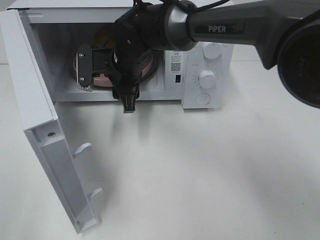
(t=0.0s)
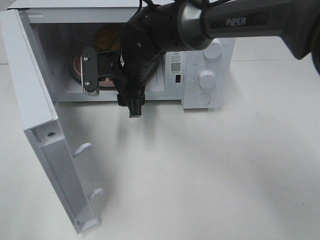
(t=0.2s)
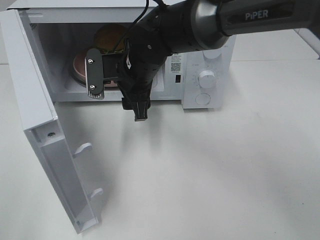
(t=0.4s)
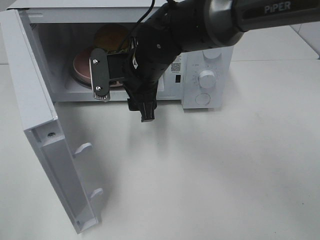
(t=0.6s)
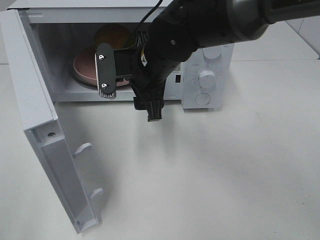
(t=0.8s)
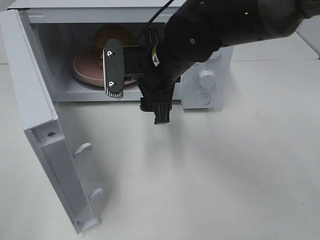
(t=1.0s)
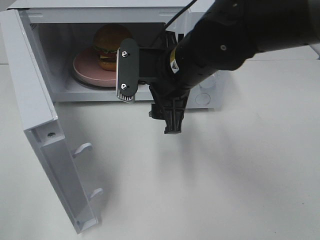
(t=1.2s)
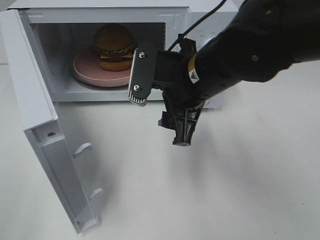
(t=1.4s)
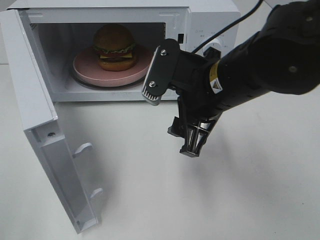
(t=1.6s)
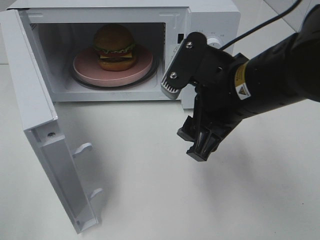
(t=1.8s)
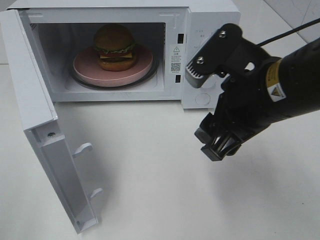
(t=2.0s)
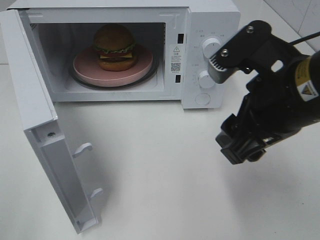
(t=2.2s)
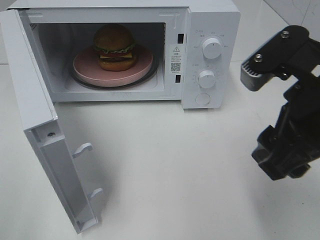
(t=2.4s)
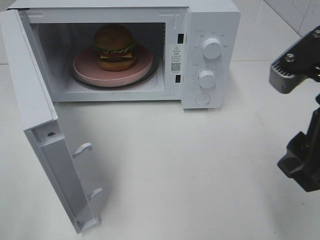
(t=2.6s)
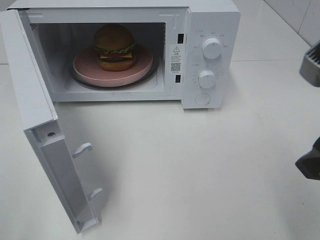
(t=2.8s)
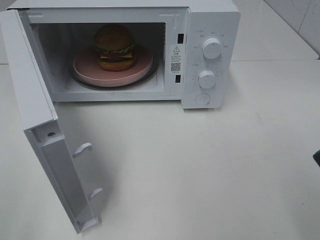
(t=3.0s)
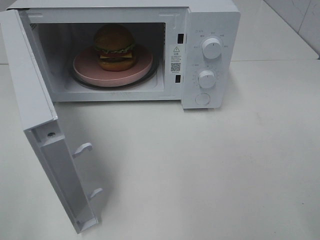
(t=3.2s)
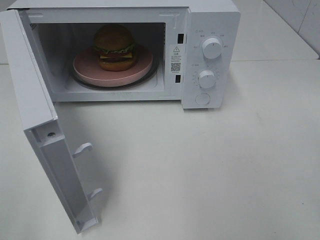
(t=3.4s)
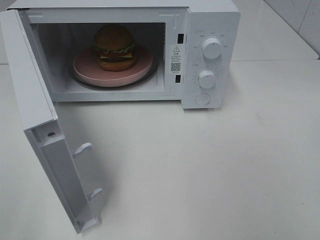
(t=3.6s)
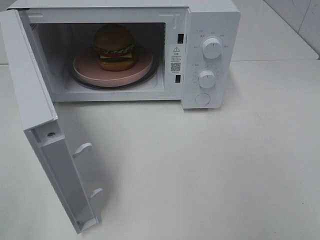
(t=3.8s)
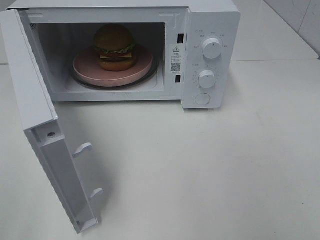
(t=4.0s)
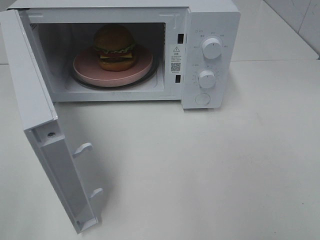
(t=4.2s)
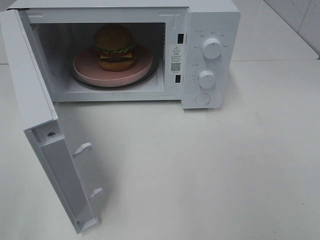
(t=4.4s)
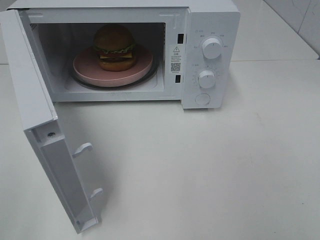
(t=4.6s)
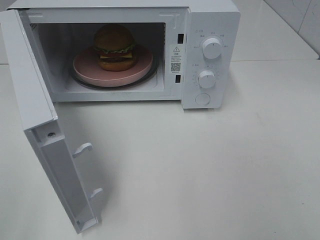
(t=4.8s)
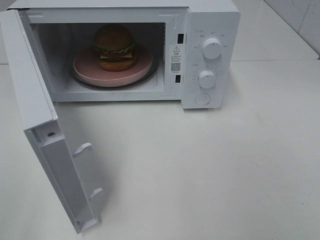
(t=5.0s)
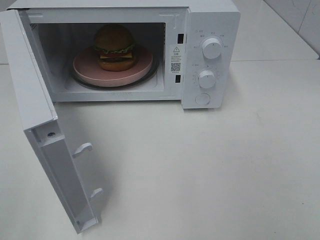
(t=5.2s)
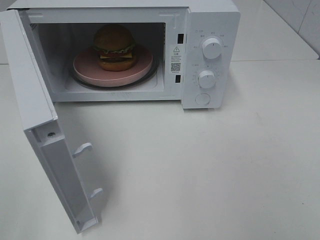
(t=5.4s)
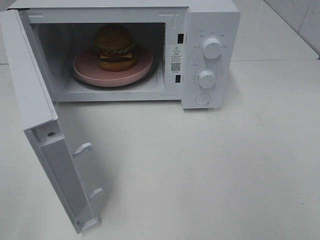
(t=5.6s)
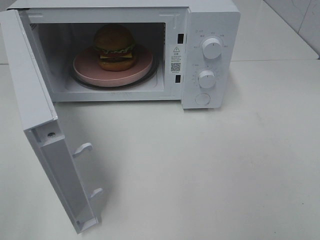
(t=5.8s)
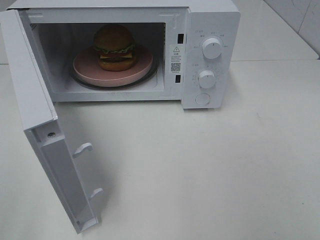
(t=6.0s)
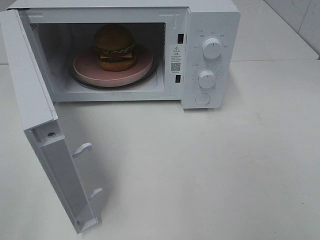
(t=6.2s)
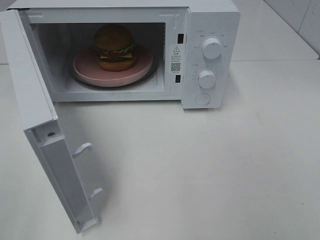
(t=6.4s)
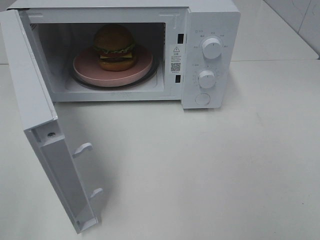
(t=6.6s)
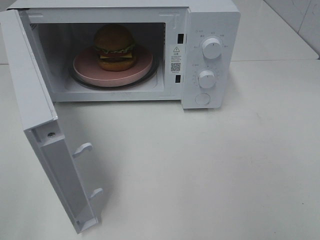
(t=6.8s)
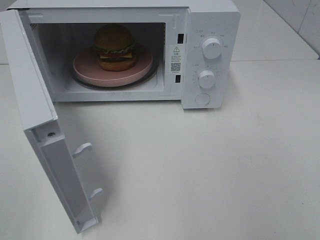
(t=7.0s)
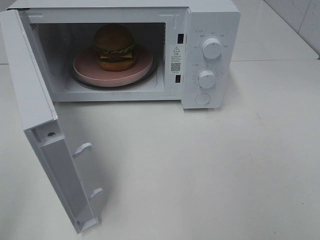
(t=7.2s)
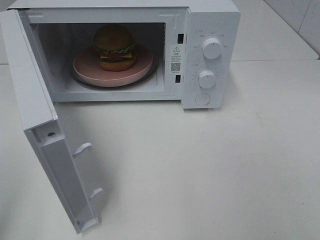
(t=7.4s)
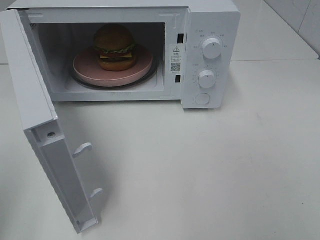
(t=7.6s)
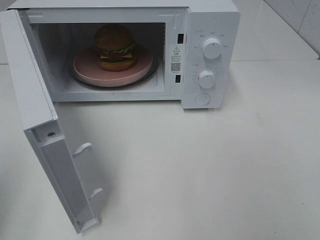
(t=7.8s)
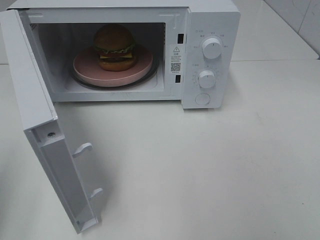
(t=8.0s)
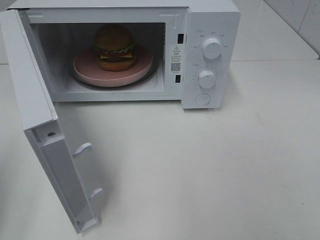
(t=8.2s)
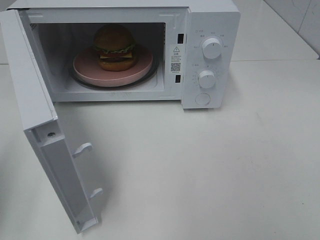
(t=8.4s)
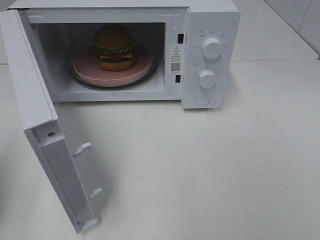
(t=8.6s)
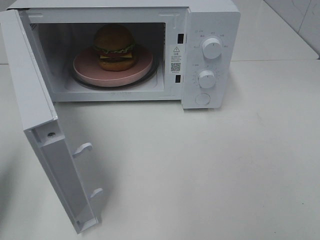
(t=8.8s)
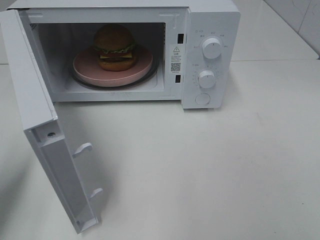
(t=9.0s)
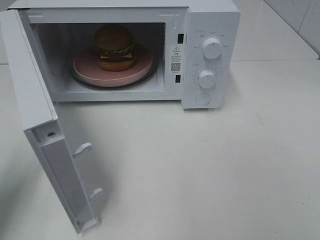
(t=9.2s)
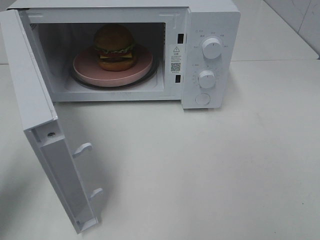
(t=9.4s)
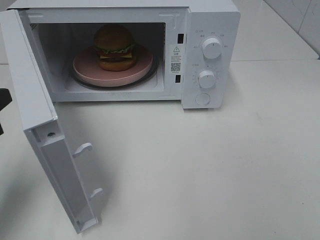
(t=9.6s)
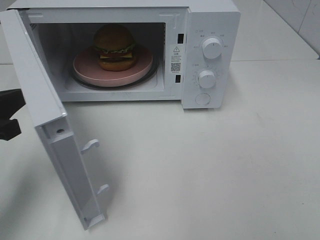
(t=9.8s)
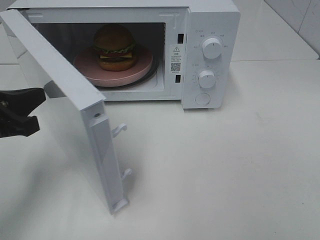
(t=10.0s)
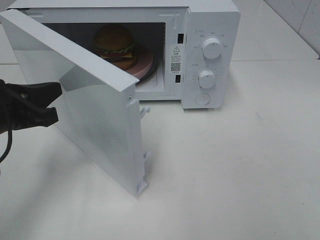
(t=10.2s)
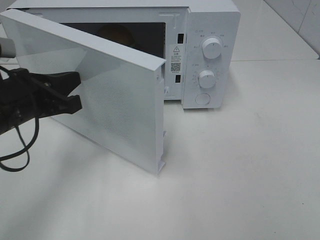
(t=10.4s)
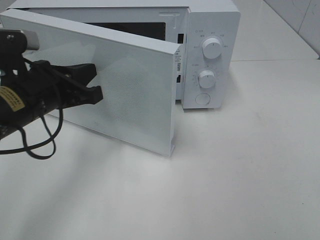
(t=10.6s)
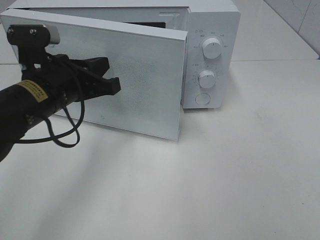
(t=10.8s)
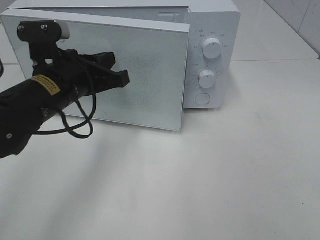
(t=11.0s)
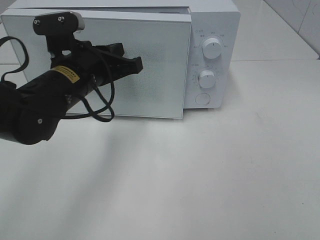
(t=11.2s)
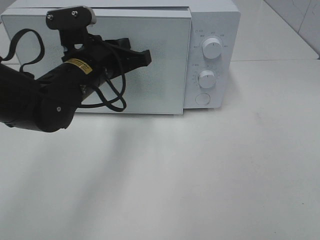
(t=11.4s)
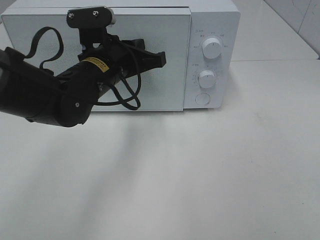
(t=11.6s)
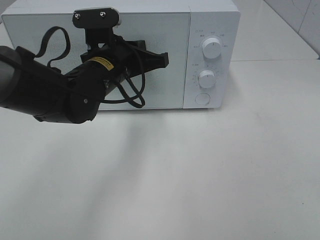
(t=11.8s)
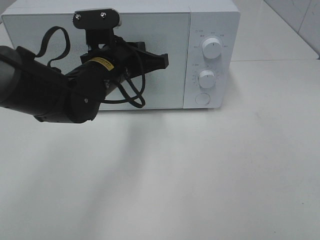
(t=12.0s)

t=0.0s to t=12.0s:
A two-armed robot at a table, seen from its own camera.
Task of the whole recording: Heat the burger.
t=0.0s to t=1.6s: The right gripper moves backward and to the right, some 20 cm.
t=1.6s to t=3.0s: The right gripper goes approximately 20 cm to the right, backward and upward.
t=4.4s to t=6.0s: Both grippers stay about where they are.
t=7.6s to t=9.0s: The left gripper is displaced forward and downward by some 10 cm.
t=9.0s to t=10.4s: The left gripper heads to the right and forward, covering about 15 cm.
t=10.4s to t=12.0s: The left gripper shifts approximately 15 cm to the right and forward.

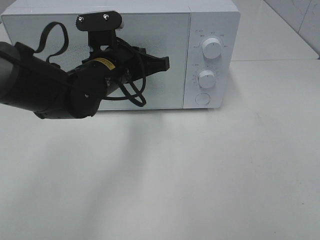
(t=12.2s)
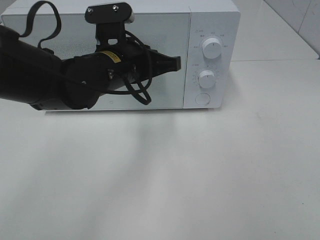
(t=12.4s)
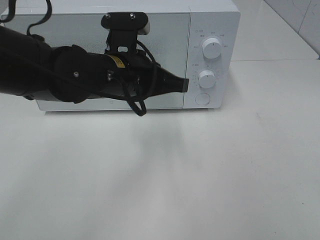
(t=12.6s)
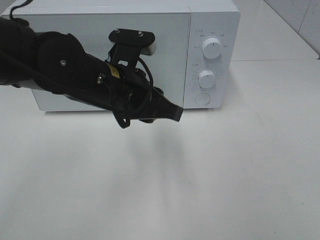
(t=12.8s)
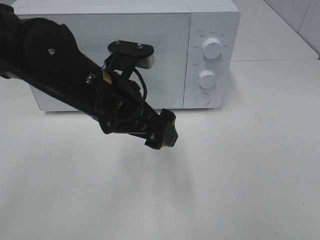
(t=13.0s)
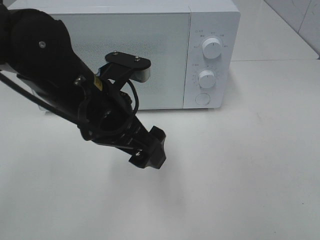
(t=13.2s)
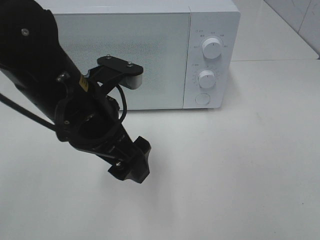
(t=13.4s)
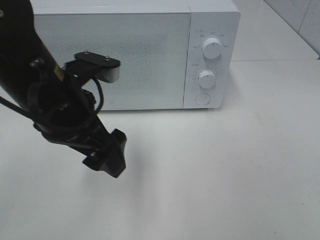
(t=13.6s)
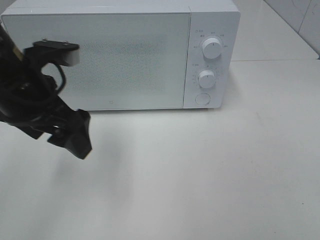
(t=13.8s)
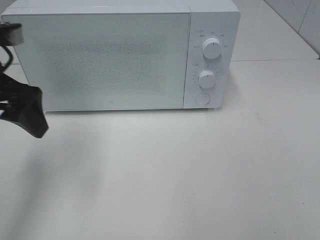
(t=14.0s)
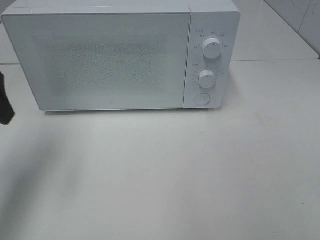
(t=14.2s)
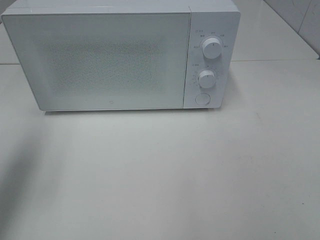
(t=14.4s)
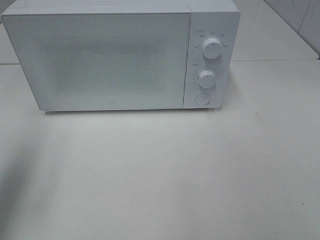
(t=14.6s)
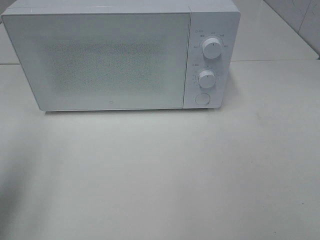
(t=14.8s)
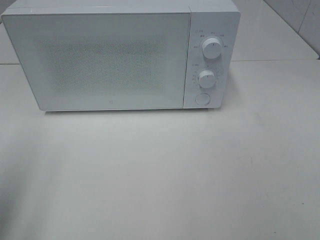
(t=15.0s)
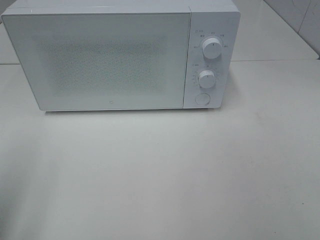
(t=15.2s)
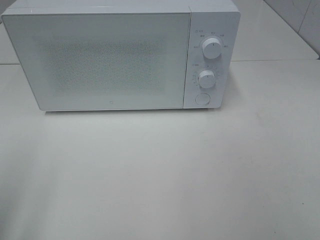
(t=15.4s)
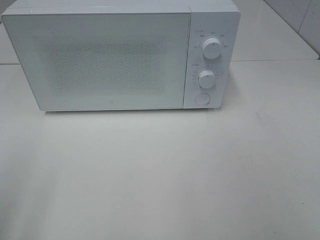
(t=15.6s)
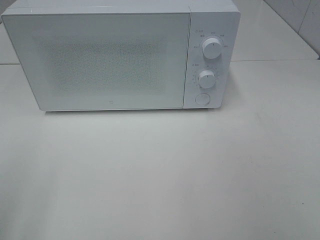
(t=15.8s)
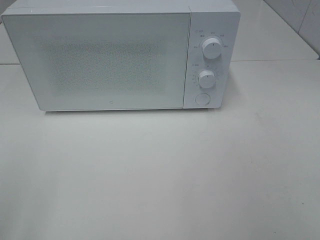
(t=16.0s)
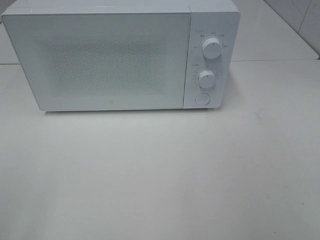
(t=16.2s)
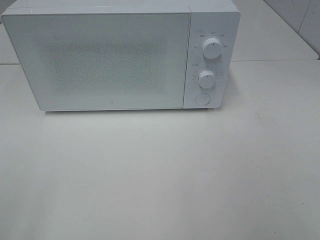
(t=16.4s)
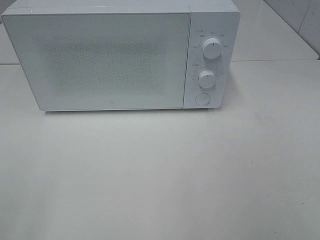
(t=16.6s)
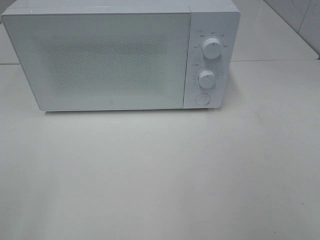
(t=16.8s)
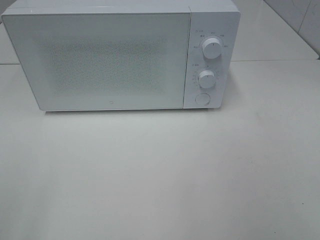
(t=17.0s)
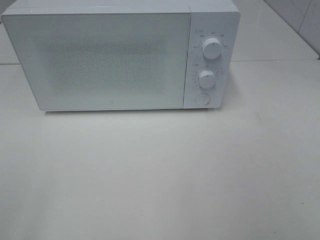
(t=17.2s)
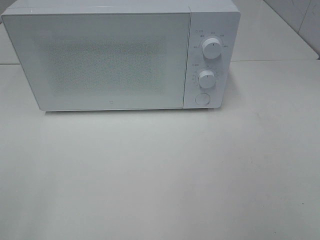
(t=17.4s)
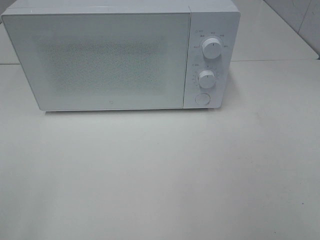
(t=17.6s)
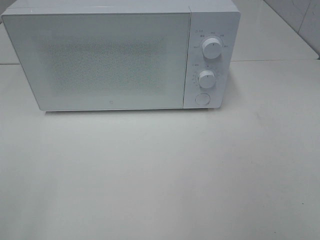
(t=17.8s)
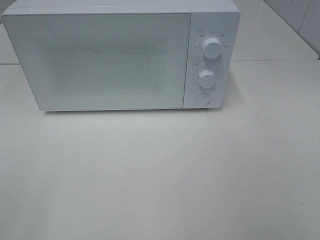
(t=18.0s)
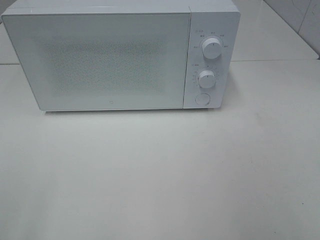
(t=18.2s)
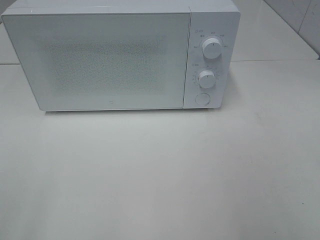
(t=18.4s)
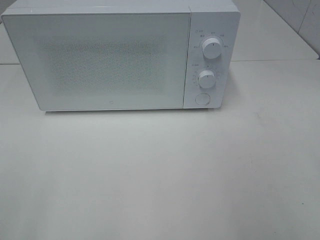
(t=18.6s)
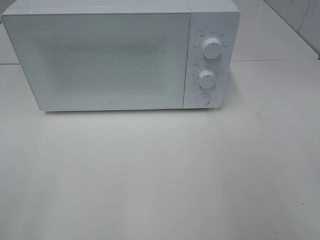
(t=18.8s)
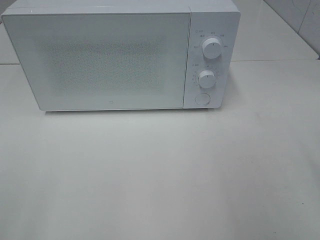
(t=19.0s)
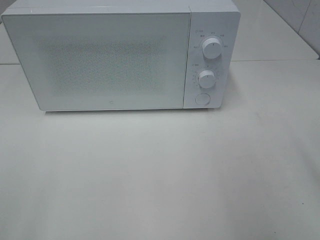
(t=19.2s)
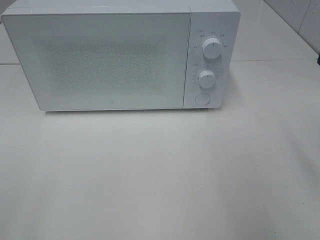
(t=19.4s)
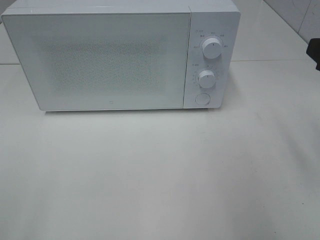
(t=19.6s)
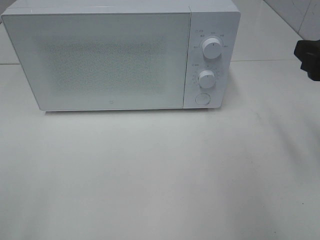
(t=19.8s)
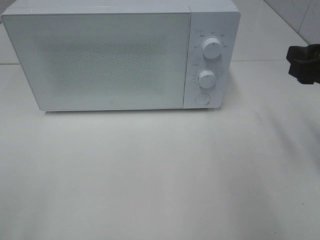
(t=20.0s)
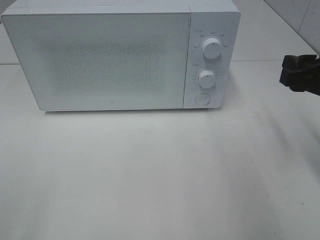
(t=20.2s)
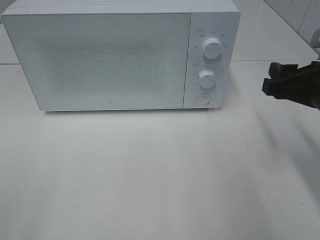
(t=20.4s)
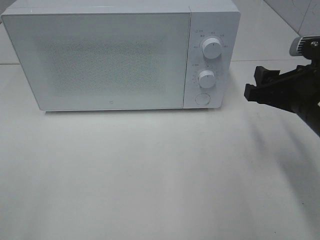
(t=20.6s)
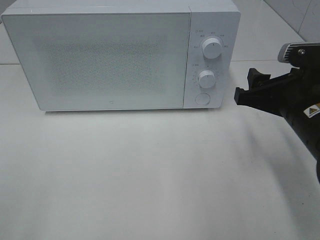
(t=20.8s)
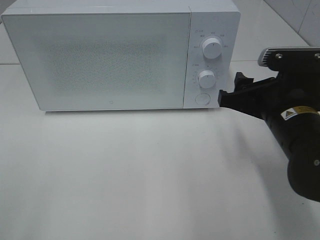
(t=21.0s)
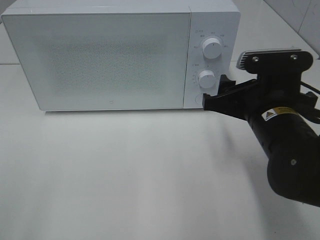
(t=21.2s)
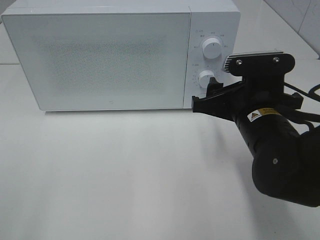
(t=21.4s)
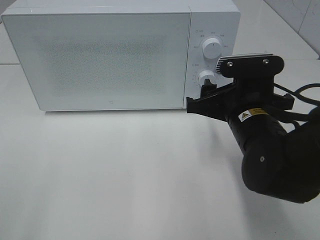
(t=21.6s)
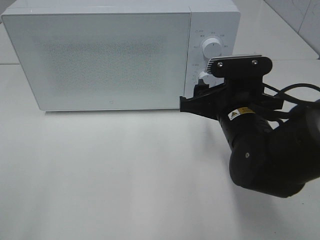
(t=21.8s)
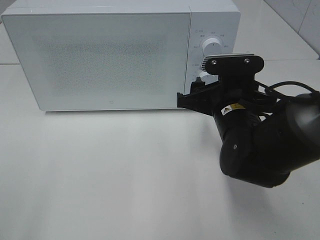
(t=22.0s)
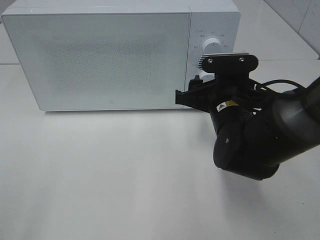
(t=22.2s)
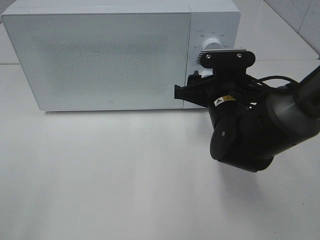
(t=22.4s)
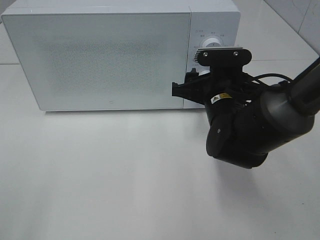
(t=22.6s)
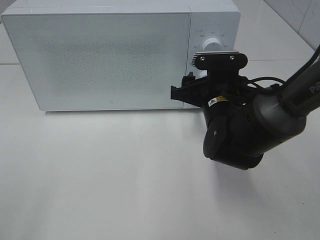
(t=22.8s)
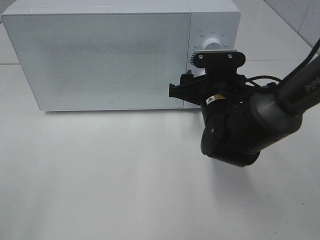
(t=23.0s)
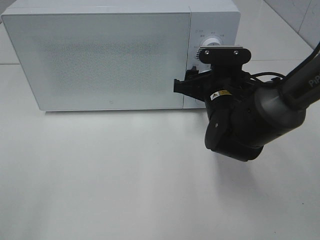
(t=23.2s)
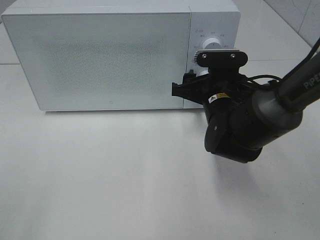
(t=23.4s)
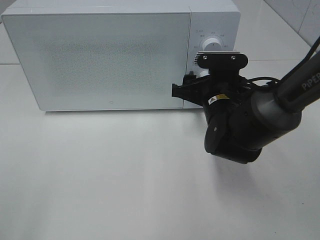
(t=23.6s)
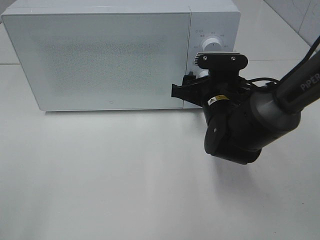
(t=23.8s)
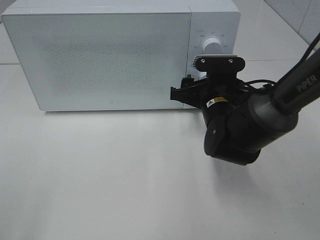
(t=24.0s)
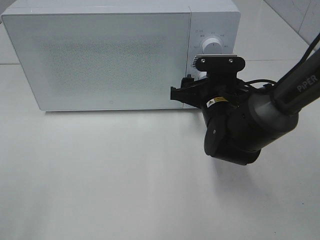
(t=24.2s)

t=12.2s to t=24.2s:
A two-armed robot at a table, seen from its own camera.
Task of the whole recording: Heat the burger.
t=12.2s to t=13.8s: The left gripper goes some 15 cm to the left, backward and upward, and opens its fingers.
t=13.8s to t=15.2s: The left gripper moves backward and to the left, roughly 20 cm.
t=18.2s to t=19.8s: The right gripper travels forward by some 20 cm.
t=19.8s to t=21.2s: The right gripper goes approximately 15 cm to the left and downward.
t=21.2s to t=22.6s: The right gripper travels forward by roughly 5 cm.
t=22.6s to t=24.2s: There are only small adjustments of the grippers.
